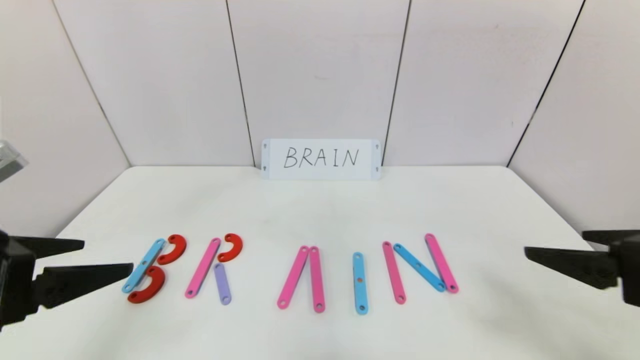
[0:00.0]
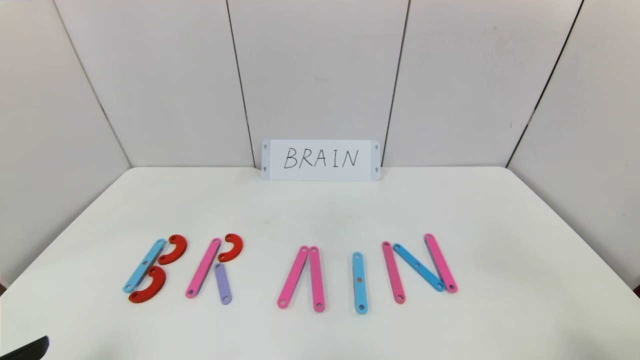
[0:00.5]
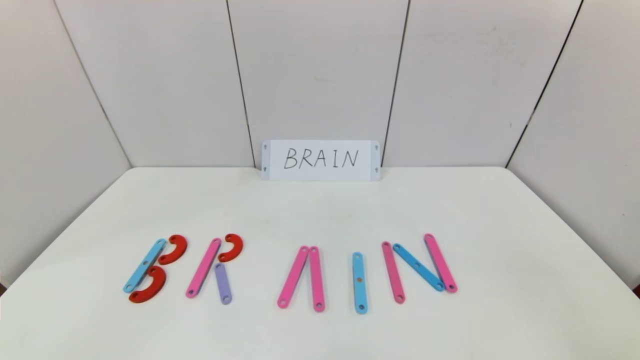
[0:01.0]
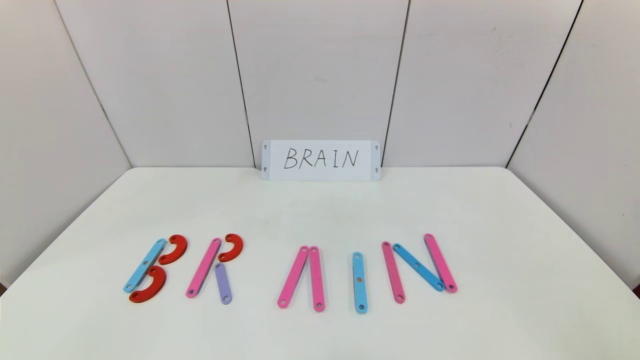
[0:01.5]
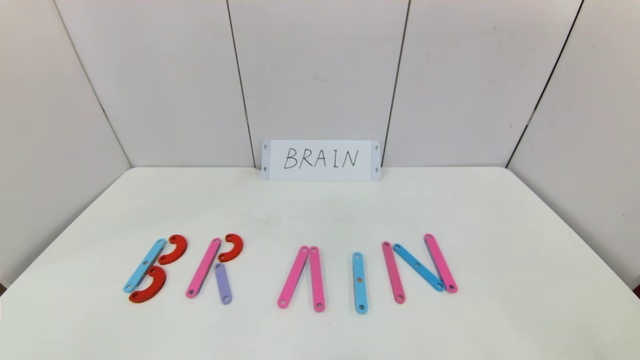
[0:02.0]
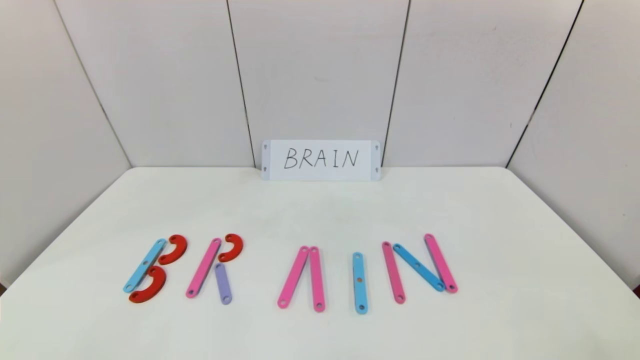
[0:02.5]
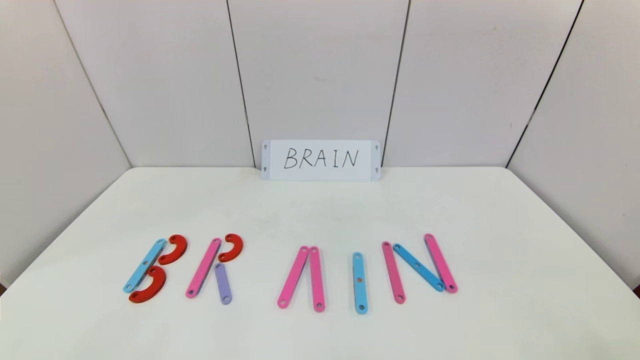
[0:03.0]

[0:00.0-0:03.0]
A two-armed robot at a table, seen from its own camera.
Task of the whole recording: rearrange the word baai as brain.
0:00.0 to 0:01.5: The grippers both shift backward and downward by some 20 cm.
